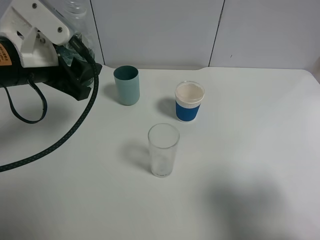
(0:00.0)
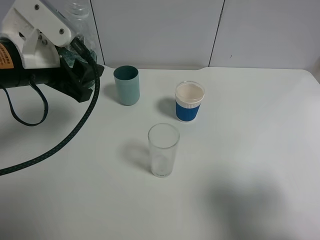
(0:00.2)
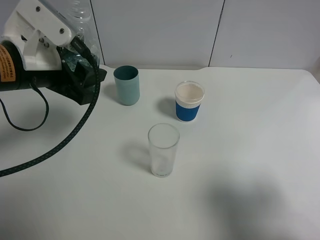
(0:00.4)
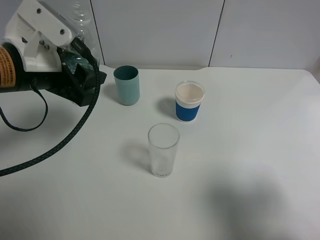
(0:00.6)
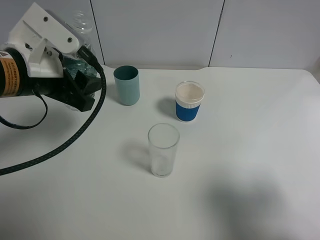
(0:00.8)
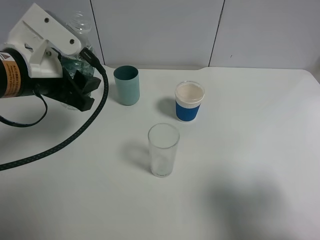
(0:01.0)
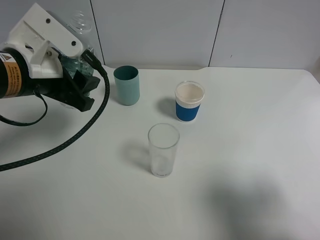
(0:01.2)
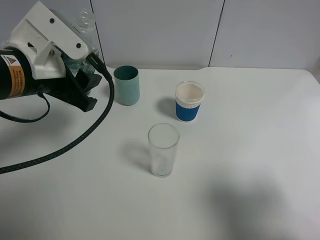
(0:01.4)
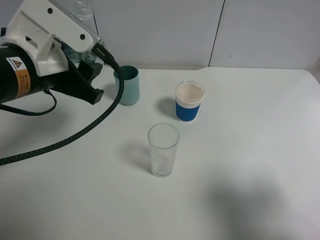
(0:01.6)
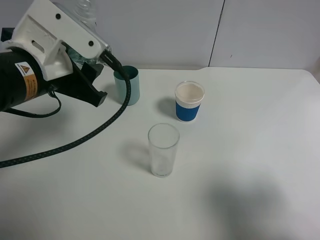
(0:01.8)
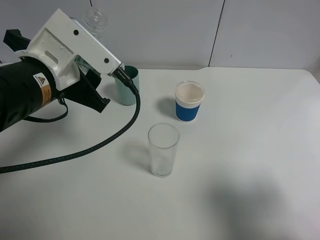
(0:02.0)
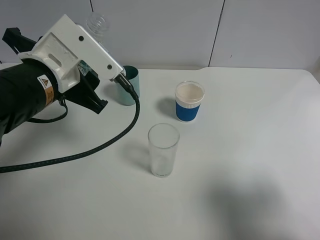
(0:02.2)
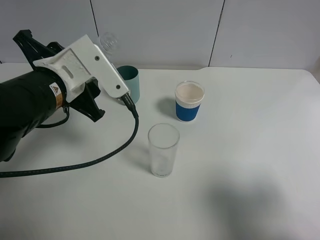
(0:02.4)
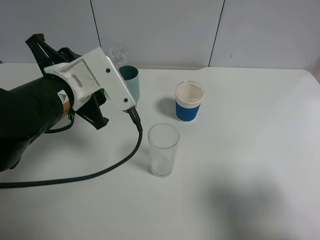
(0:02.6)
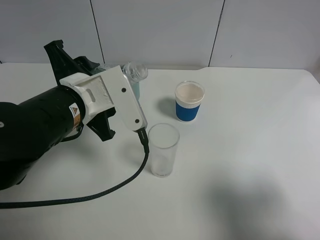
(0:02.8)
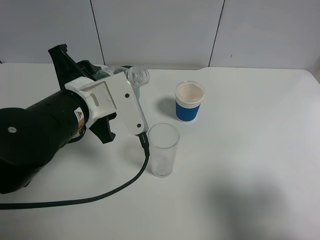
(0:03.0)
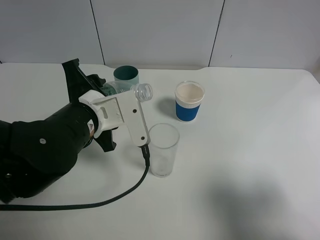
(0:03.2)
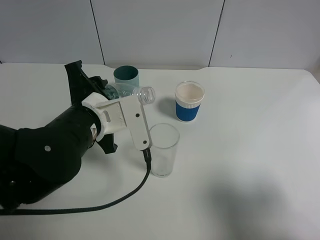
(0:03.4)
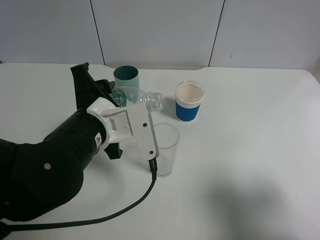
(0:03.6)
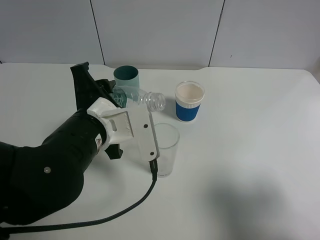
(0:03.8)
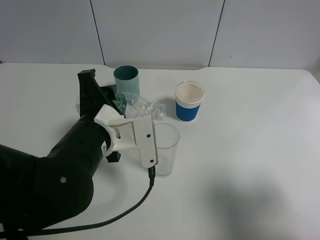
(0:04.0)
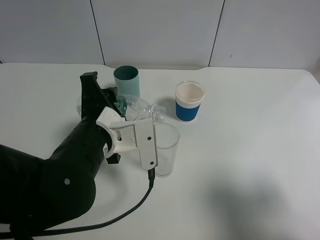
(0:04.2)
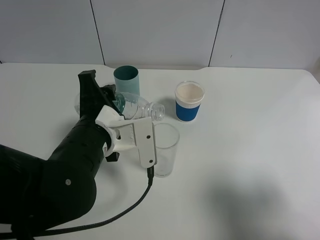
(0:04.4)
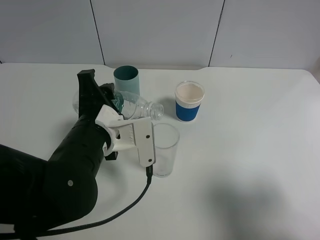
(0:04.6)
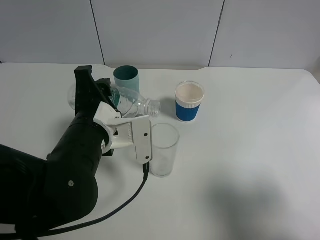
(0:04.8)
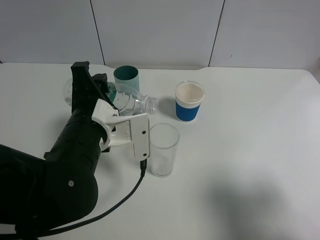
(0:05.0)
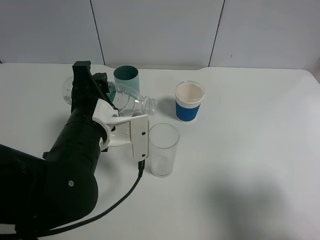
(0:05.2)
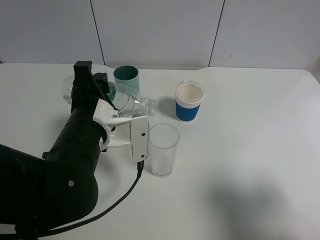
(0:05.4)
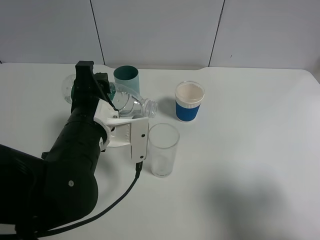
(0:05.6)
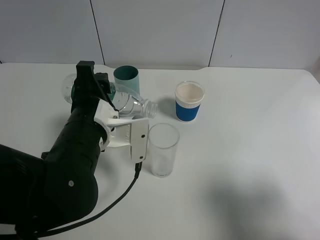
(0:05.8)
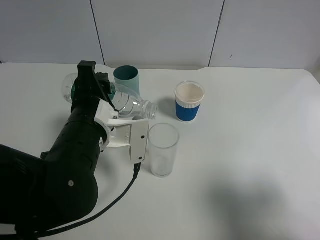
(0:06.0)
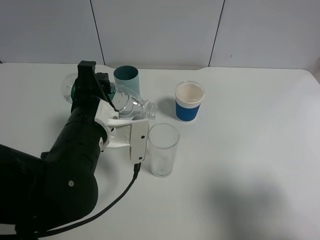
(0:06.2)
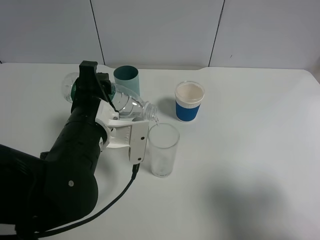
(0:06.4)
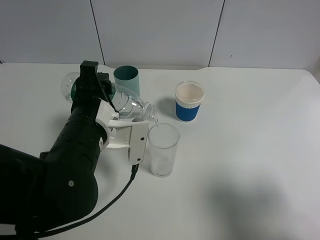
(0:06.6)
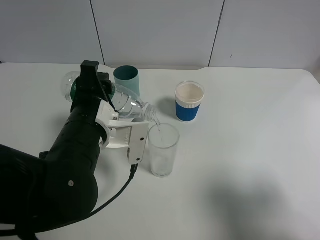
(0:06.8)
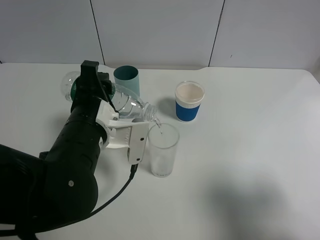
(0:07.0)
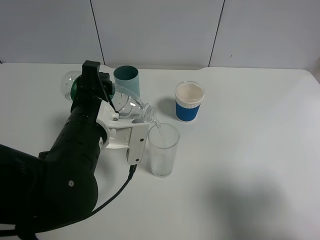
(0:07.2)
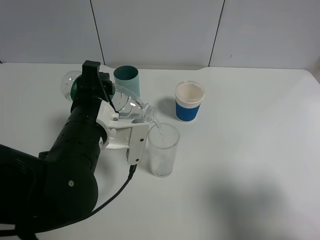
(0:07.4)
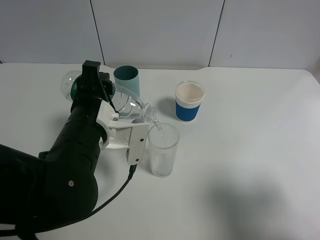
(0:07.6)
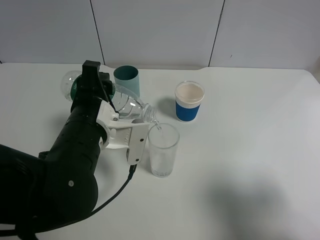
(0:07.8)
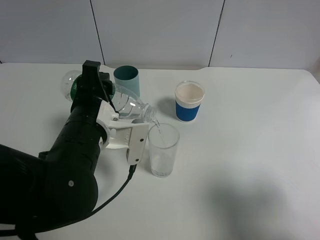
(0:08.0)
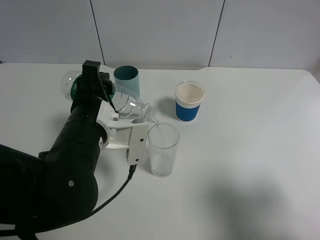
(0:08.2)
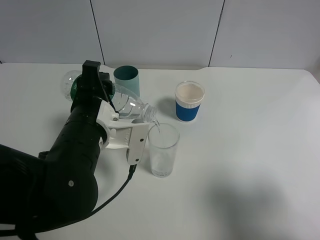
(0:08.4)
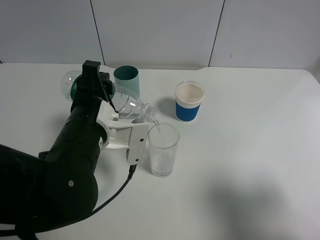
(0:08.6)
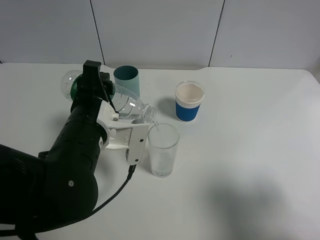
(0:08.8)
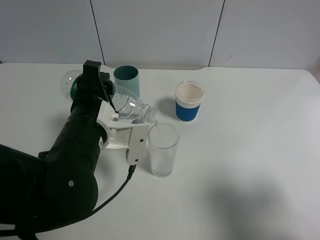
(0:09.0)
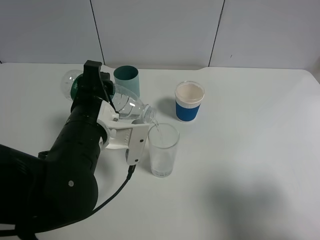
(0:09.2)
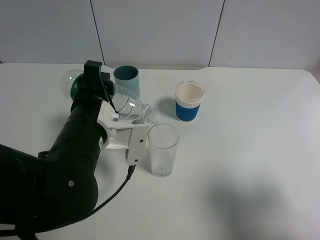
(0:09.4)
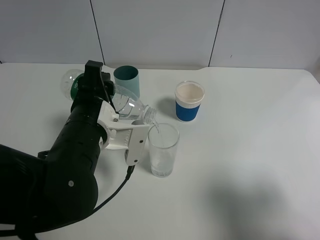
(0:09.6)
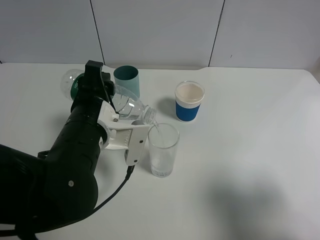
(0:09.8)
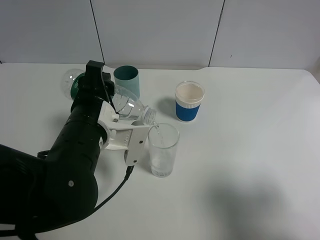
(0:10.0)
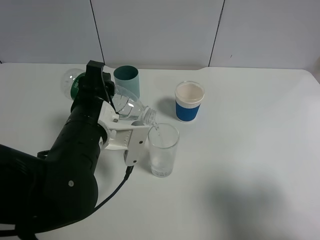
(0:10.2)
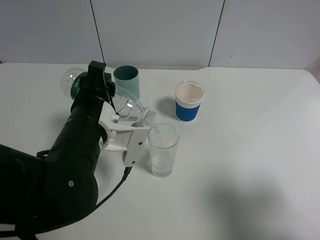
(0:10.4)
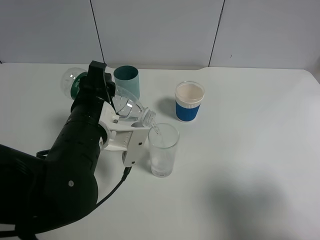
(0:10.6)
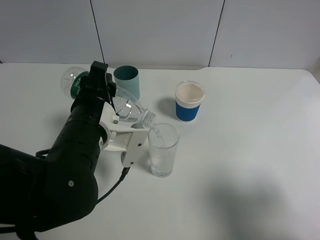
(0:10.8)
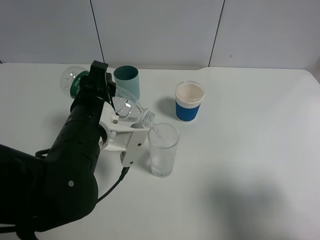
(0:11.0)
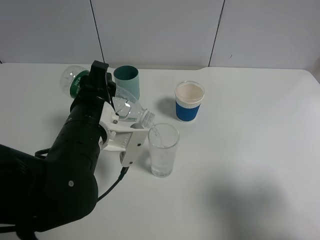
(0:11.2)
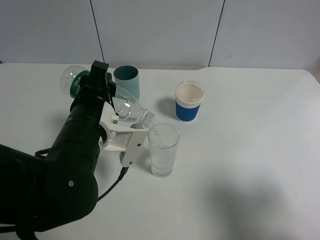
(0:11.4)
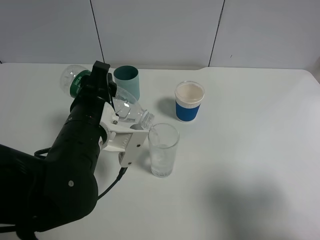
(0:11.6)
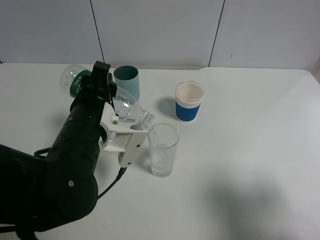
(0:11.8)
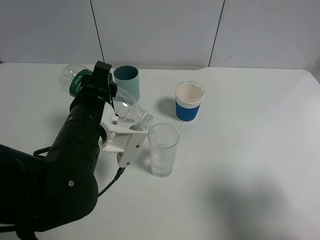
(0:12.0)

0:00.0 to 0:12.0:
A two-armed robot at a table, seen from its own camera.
Task of the whole recording: use a gripper to hold the bottle of the drink and pour it into a random cup.
0:00.0 to 0:01.6: The grippers move only a little.
0:01.6 to 0:03.0: The left gripper shifts approximately 5 cm downward.
0:04.4 to 0:06.0: The grippers move only a little.
0:06.0 to 0:07.6: Both grippers stay about where they are.
0:07.6 to 0:09.0: Both grippers stay put.
0:09.0 to 0:12.0: The grippers move only a little.

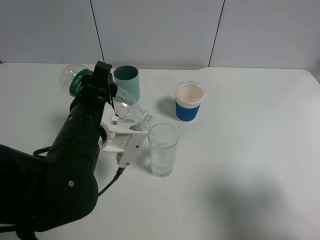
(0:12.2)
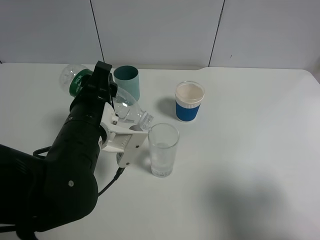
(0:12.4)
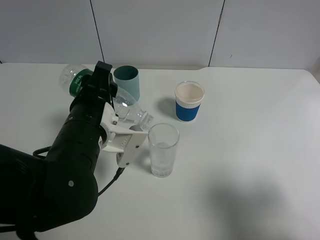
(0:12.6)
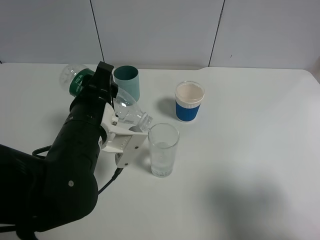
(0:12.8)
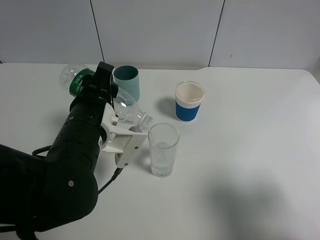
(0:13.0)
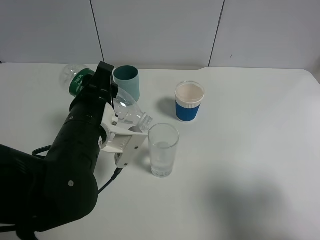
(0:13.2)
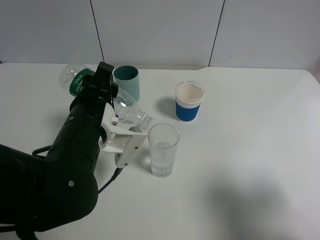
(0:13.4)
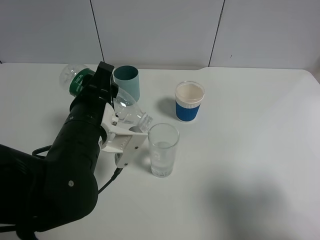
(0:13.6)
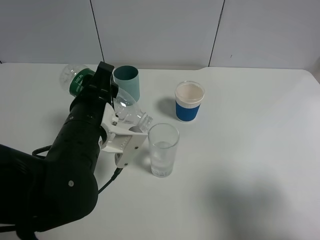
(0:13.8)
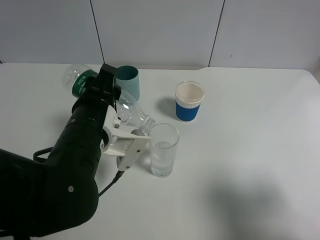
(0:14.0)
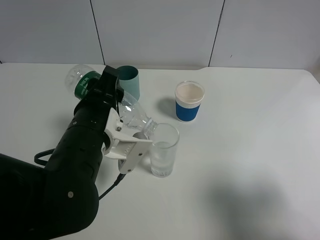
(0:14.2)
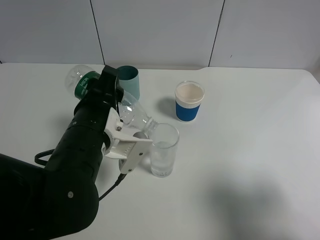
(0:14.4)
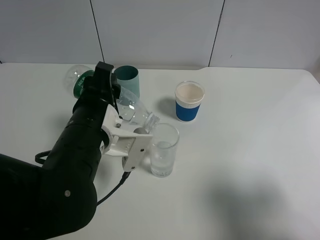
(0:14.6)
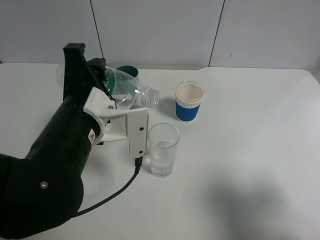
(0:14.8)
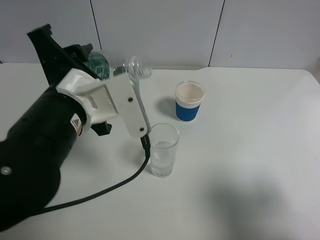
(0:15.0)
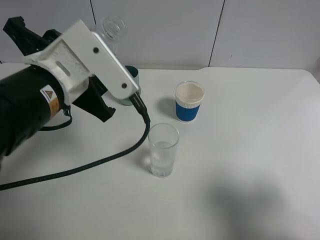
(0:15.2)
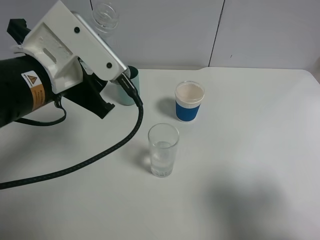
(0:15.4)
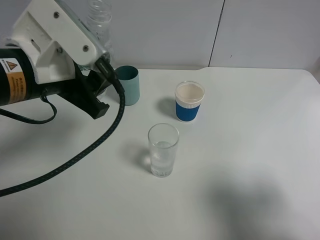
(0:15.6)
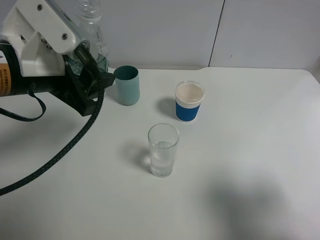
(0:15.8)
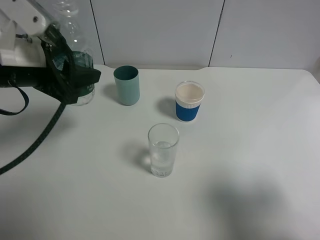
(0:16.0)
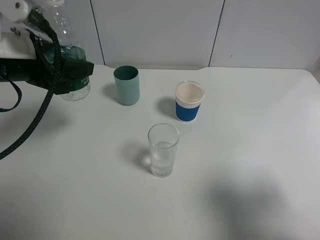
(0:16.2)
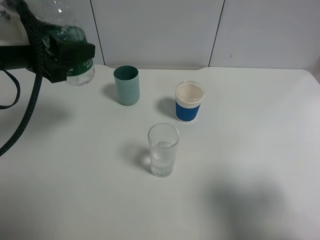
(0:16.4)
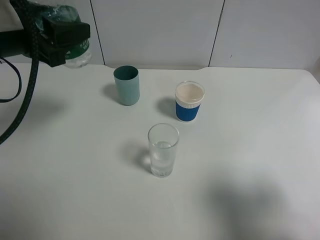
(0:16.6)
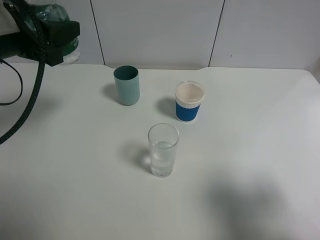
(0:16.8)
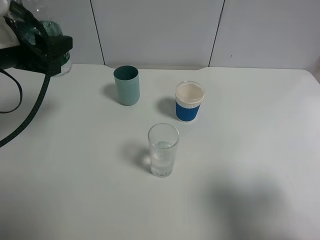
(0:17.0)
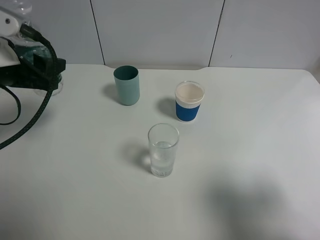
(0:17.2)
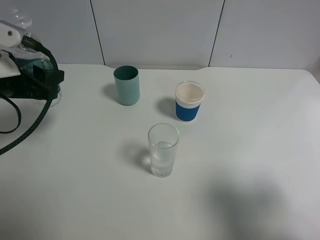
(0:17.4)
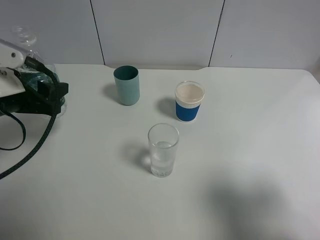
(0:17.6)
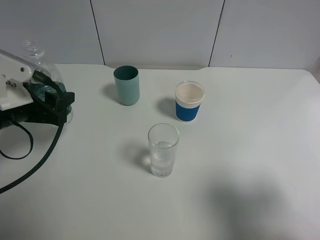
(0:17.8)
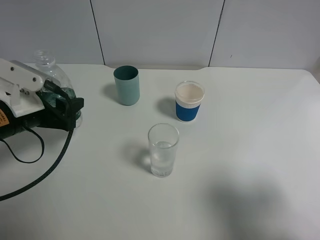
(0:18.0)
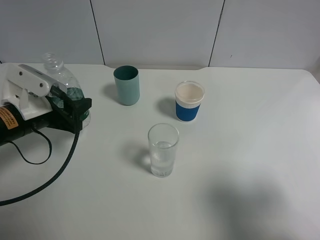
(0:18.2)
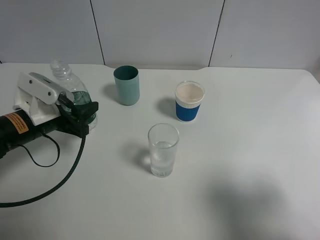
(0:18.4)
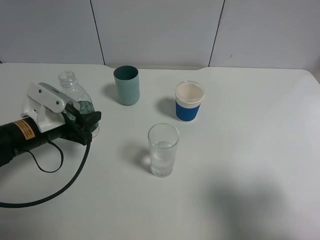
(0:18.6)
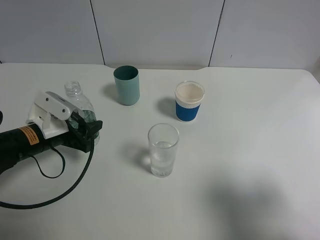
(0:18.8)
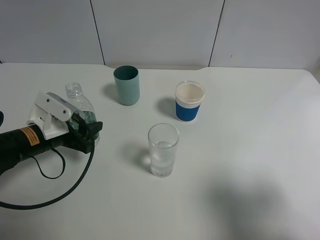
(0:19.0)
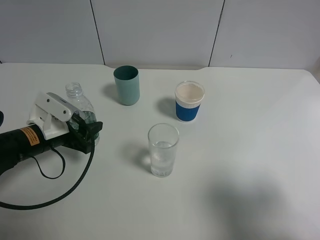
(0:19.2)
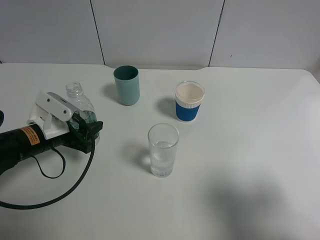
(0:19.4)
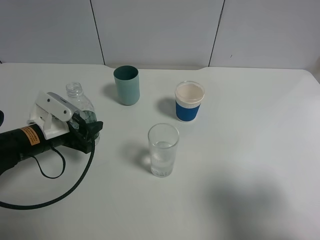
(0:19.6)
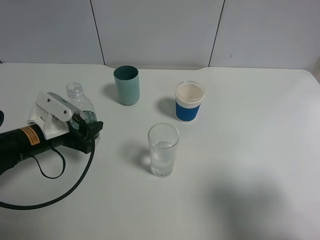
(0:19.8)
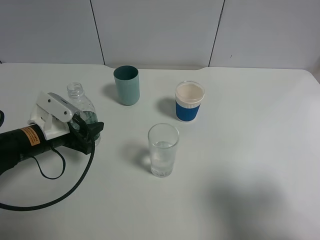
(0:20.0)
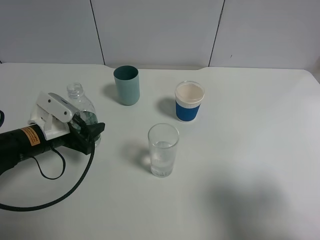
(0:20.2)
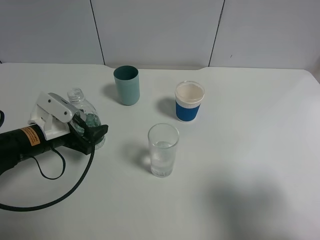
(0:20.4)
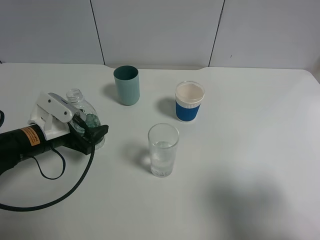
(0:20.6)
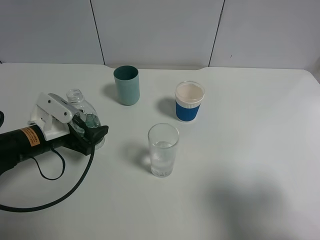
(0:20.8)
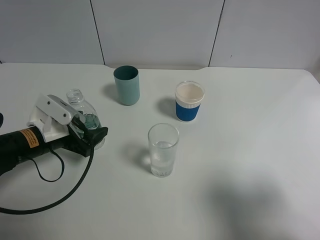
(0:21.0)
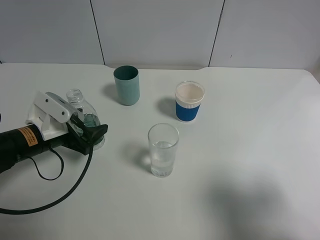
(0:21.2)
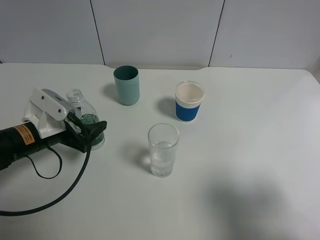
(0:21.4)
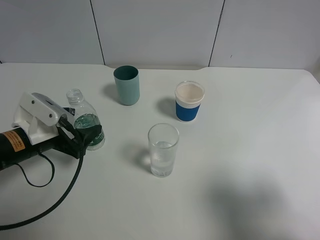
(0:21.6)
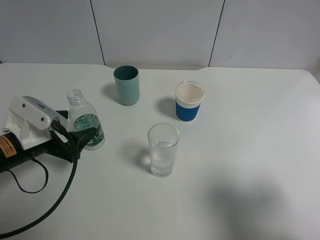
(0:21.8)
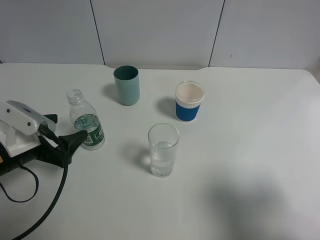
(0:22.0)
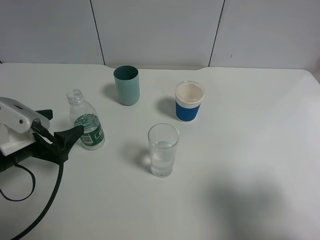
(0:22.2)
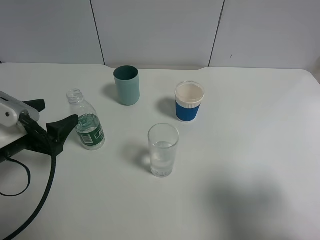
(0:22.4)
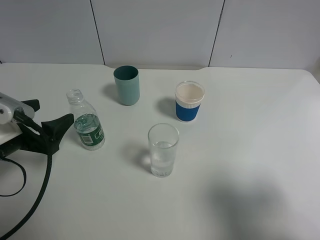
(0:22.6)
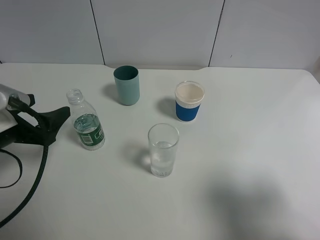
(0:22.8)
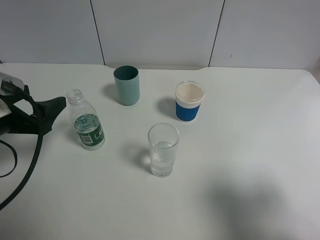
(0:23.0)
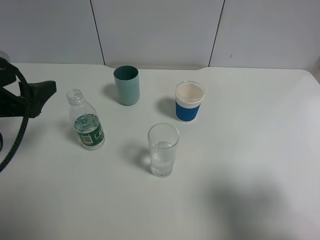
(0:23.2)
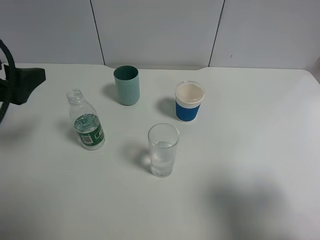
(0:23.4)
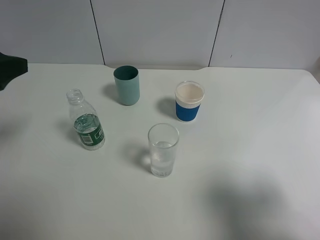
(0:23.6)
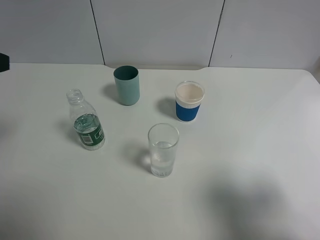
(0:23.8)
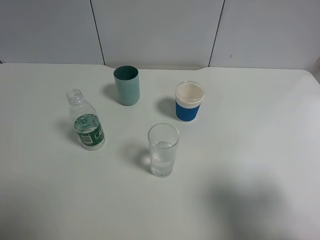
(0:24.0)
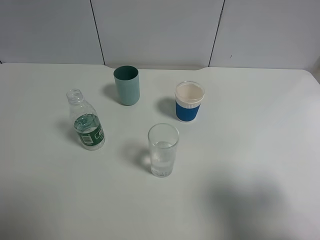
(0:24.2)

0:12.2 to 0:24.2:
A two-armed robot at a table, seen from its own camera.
Task of the whole recording: use a gripper to hold the bottle of the drink and pour it into a random cup.
Step, 0:12.2 to 0:14.8: Pour the mineral water into the glass with the left gripper.
Step, 0:15.0 to 0:20.8: Place the mineral water bottle on the table with the left gripper.
0:12.2 to 0:13.8: The two grippers keep their place.
0:13.8 to 0:15.2: The left gripper goes approximately 10 cm upward.
0:15.2 to 0:16.6: The left gripper is displaced to the left and forward by some 10 cm.
0:16.6 to 0:18.2: The left gripper travels downward by about 15 cm.
0:18.2 to 0:19.8: The left gripper is displaced downward by about 5 cm.
0:19.8 to 0:21.2: The left gripper opens.
0:21.2 to 0:22.6: The left gripper goes approximately 10 cm backward and upward.
0:22.6 to 0:24.2: The left gripper is displaced upward by some 20 cm.
